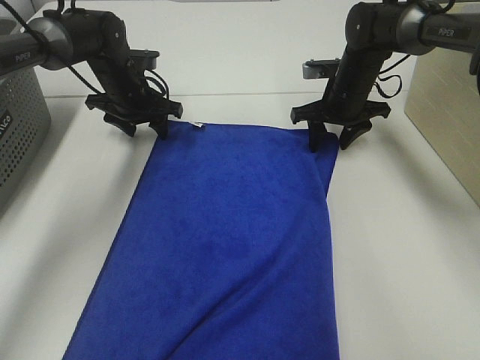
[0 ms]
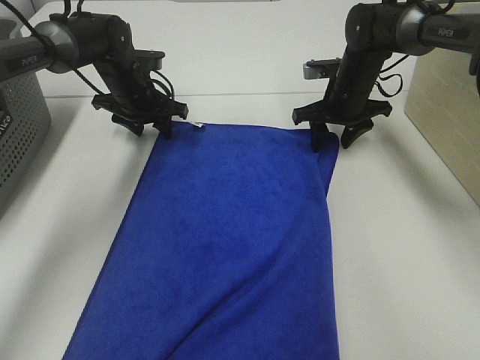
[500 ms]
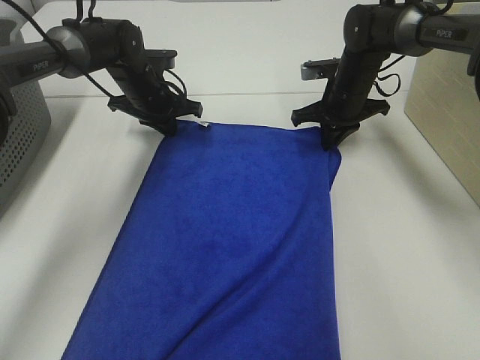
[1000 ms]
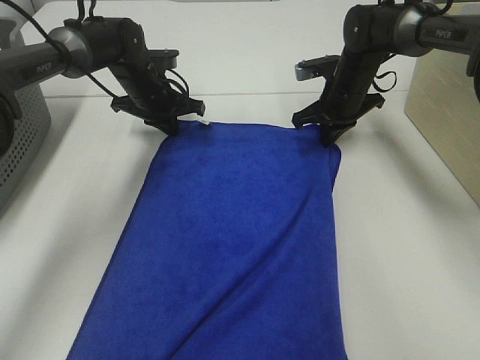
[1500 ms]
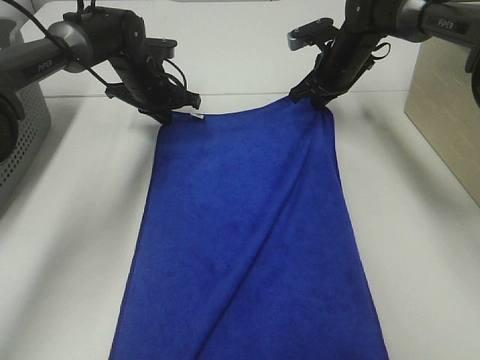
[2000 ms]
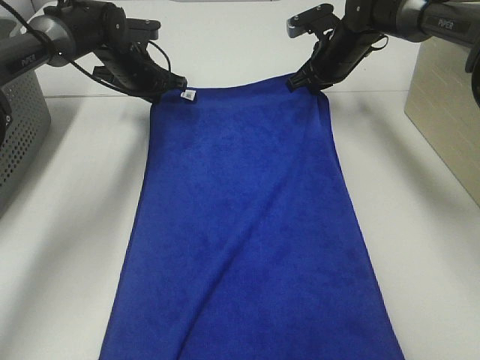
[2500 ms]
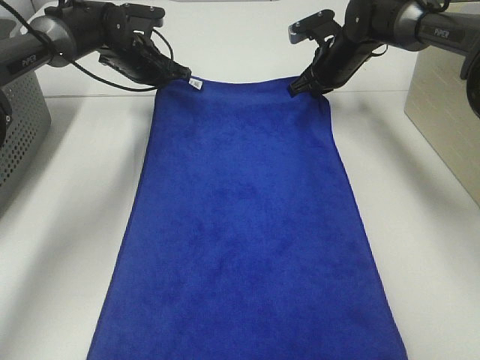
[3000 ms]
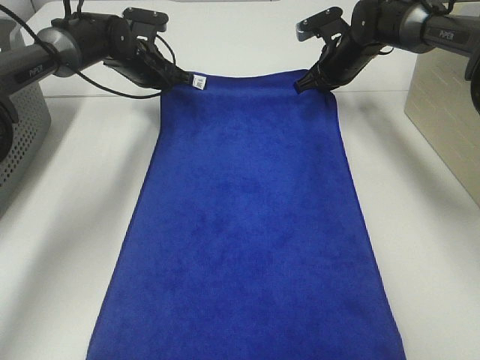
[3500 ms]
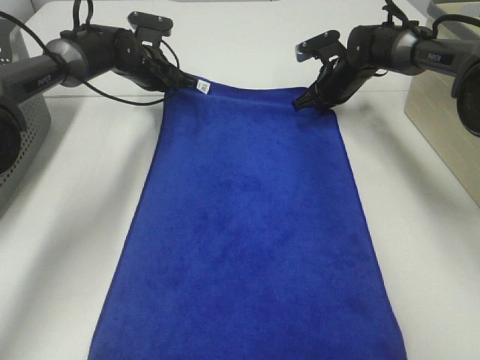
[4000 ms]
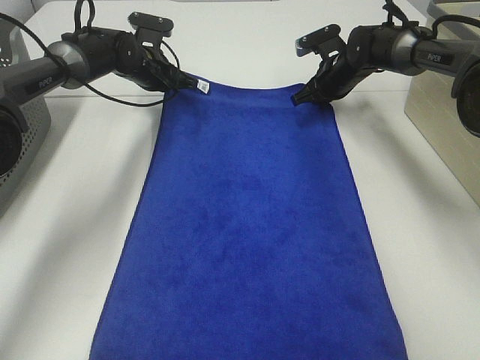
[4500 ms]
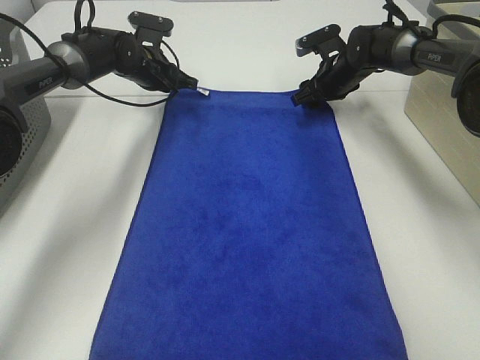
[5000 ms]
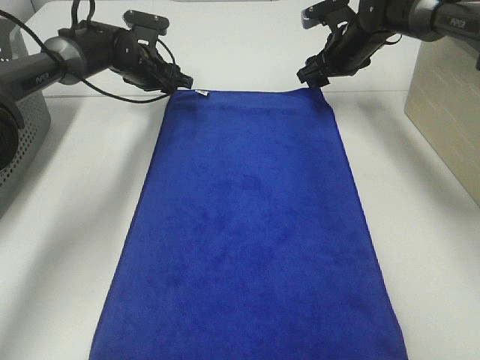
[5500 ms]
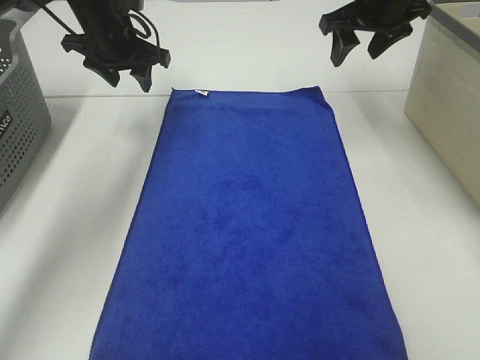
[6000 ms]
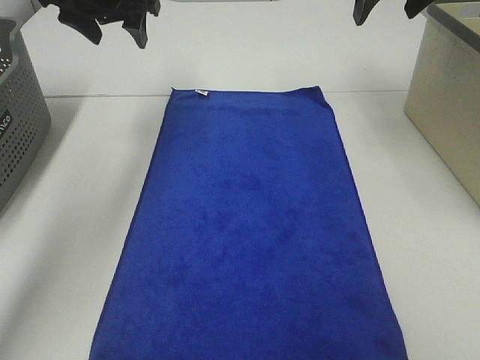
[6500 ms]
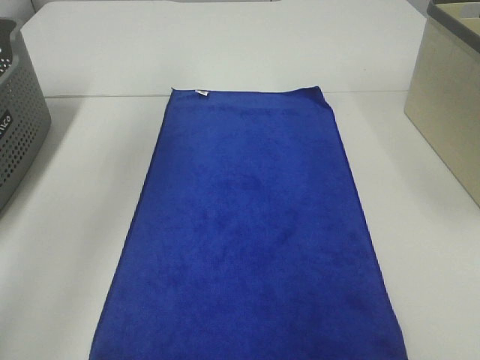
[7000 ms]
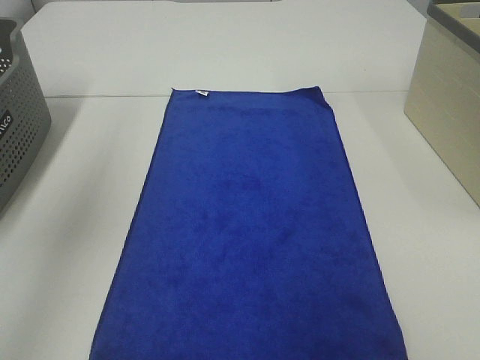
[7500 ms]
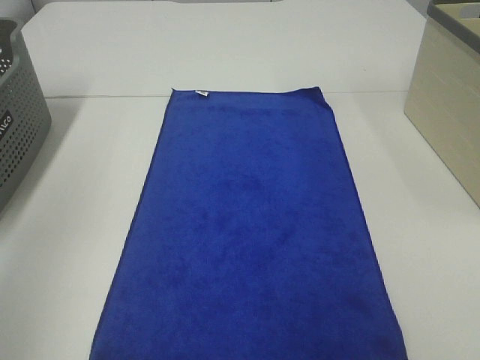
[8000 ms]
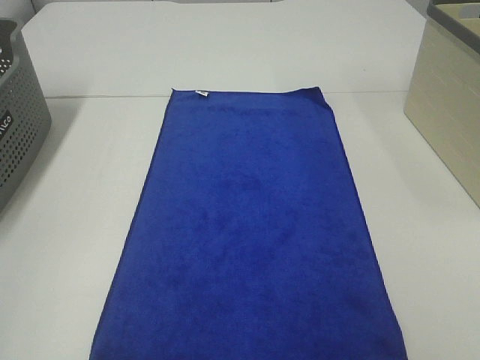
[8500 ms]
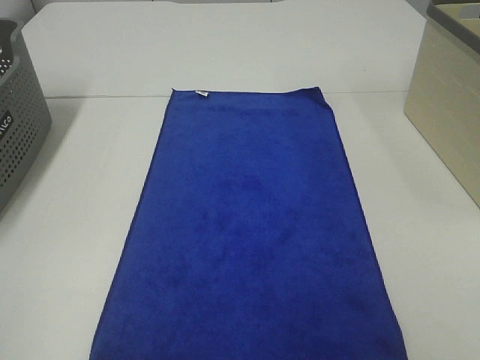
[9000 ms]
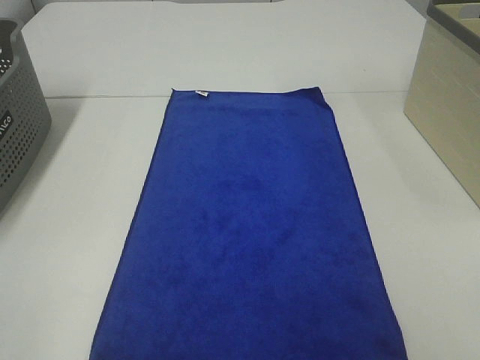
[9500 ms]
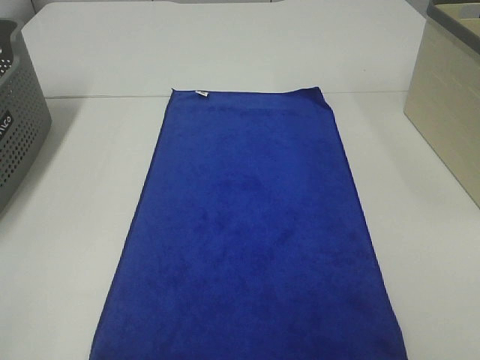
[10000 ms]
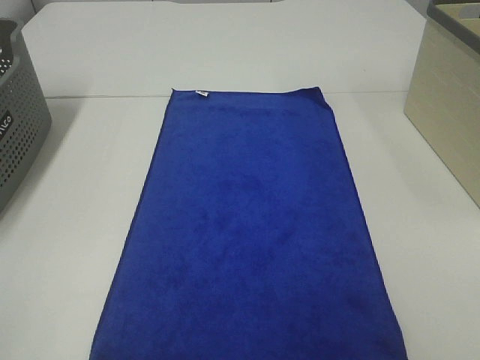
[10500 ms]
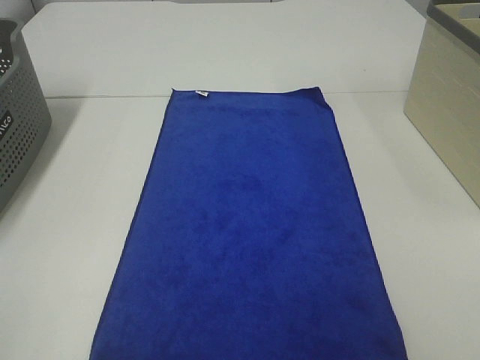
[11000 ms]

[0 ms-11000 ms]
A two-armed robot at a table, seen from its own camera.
Task of the whole recording: Remove the towel and place it.
0 ms to 2000 ms: The left gripper closes up. Meanwhile the right gripper closes its fingers.
3500 ms to 5500 ms: The left gripper opens. The right gripper opens.
5500 ms to 7500 ms: Both grippers move backward and upward, roughly 50 cm.
7500 ms to 9000 ms: The left gripper heads backward and downward, covering roughly 30 cm.

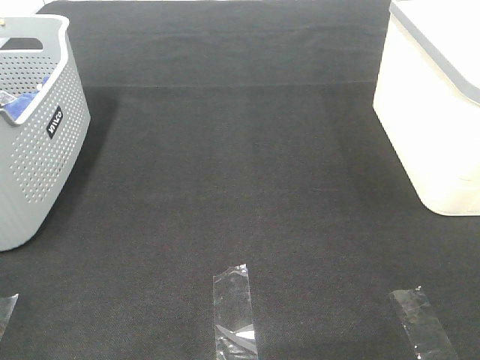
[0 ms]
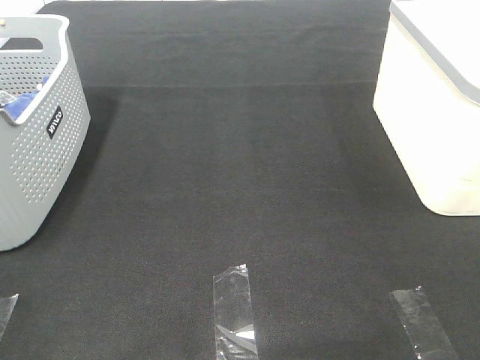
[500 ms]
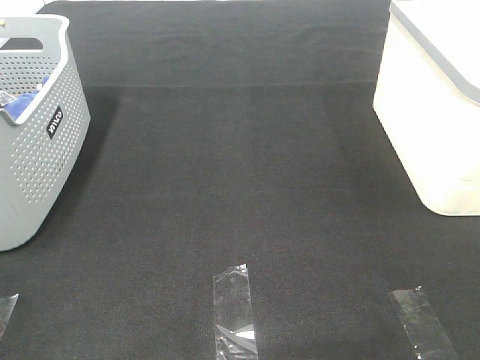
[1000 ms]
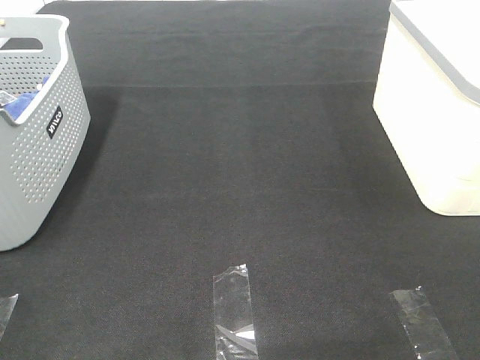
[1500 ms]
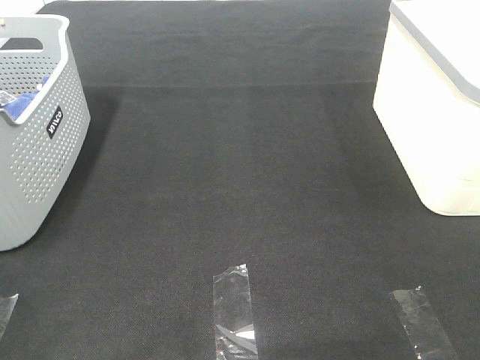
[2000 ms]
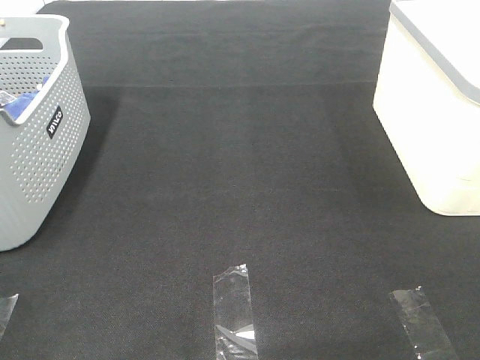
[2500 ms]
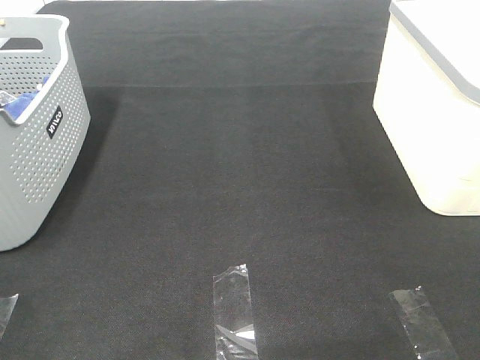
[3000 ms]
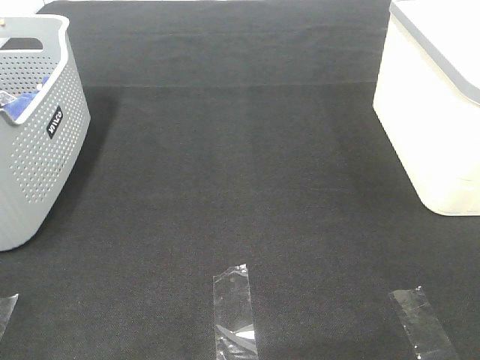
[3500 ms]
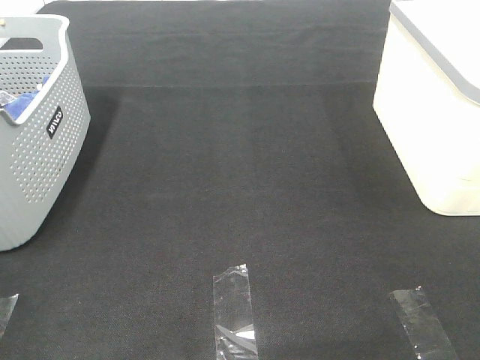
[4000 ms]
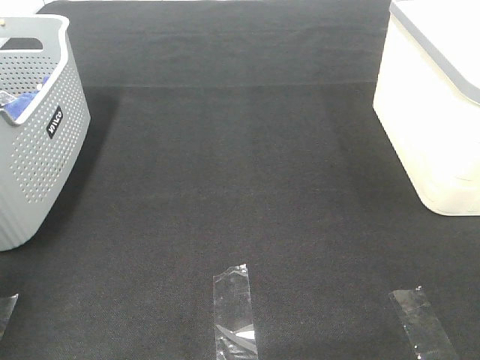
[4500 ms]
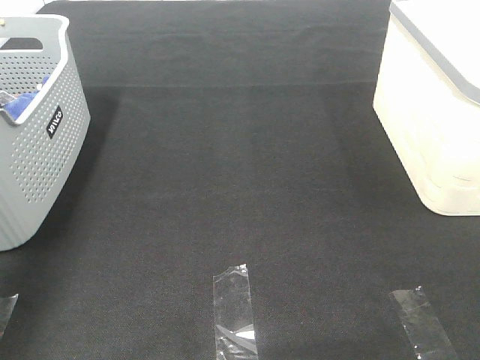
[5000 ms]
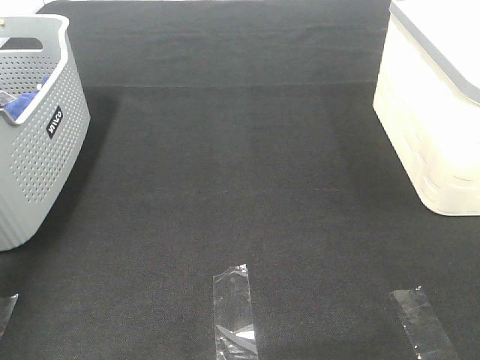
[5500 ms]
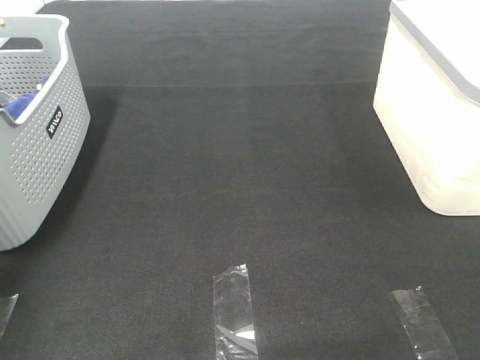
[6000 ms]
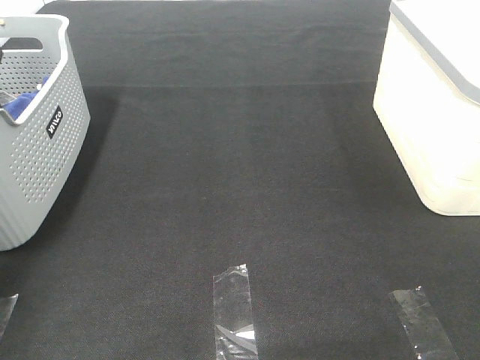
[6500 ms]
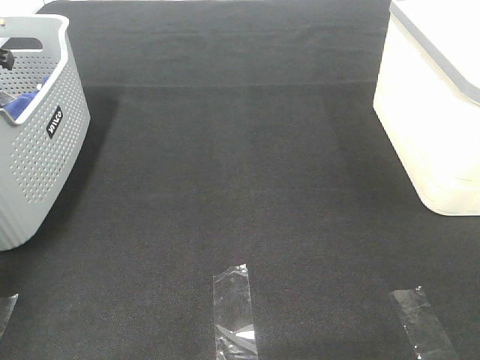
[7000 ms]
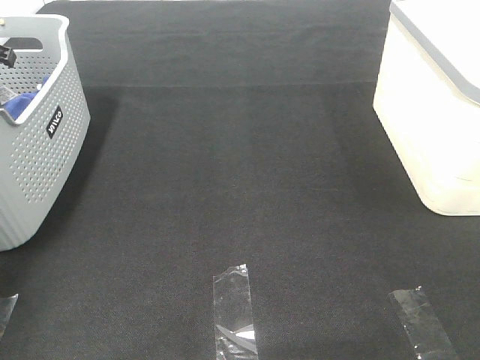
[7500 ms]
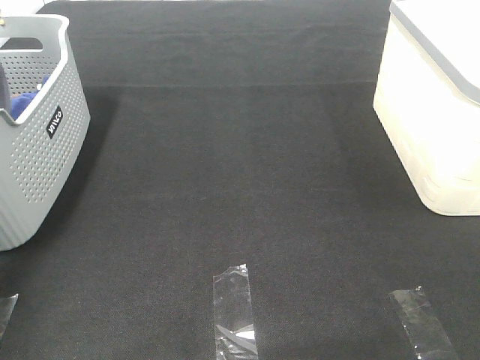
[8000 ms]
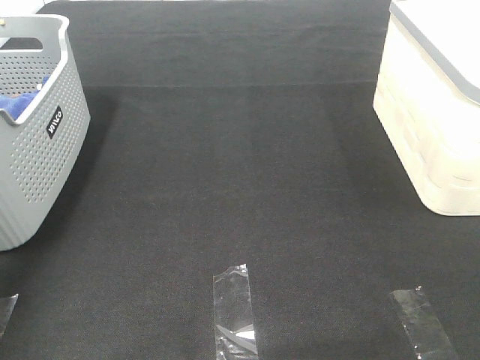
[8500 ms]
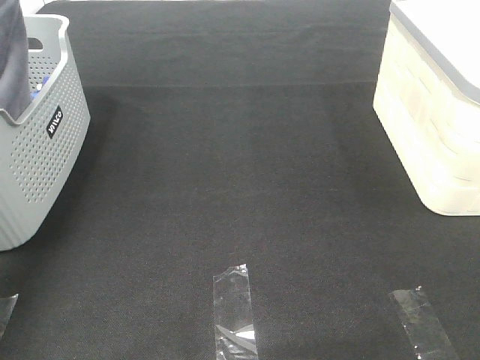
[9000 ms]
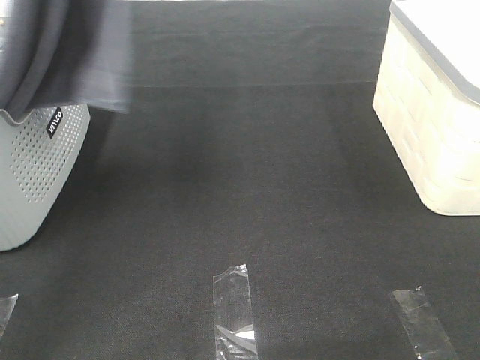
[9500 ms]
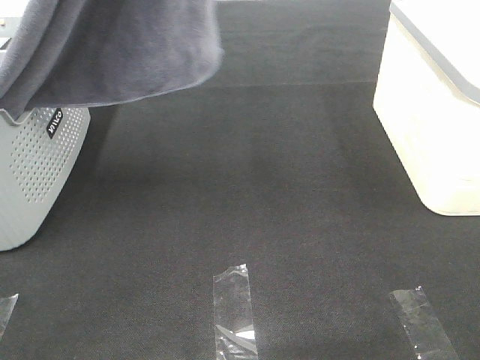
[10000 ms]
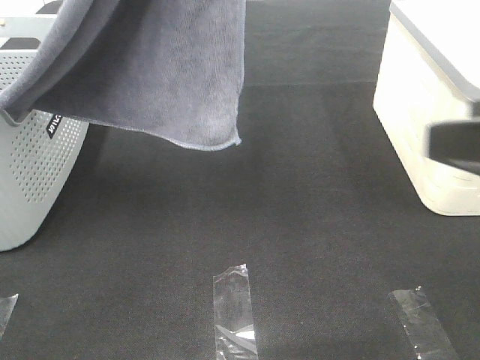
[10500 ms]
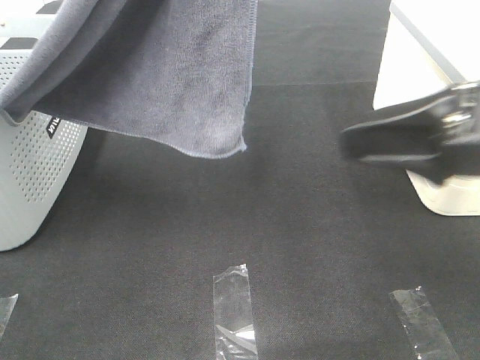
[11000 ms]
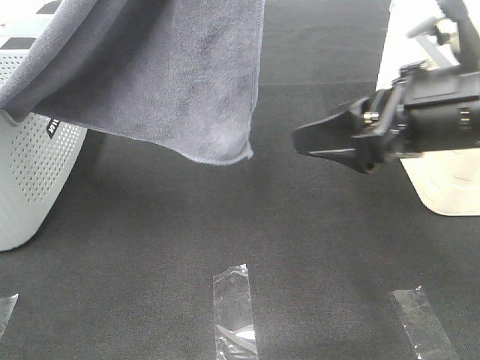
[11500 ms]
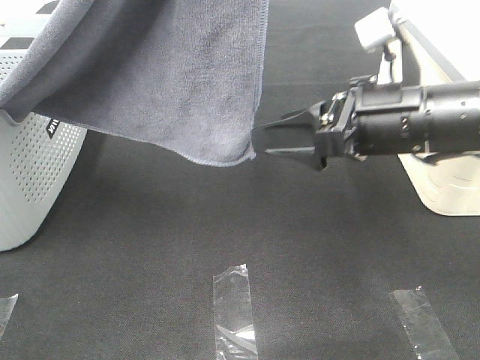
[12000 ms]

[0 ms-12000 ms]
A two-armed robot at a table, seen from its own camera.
Task of the whole recording: Remove the towel and place it.
0 ms to 2000 ms: Both grippers stay put.
4000 ms to 6000 ms: The left gripper shifts roughly 40 cm forward.
8000 ms to 10000 ms: The left gripper travels to the right, upward and backward by roughly 30 cm.
10000 ms to 12000 ms: The right gripper travels forward, to the left and downward by some 25 cm.

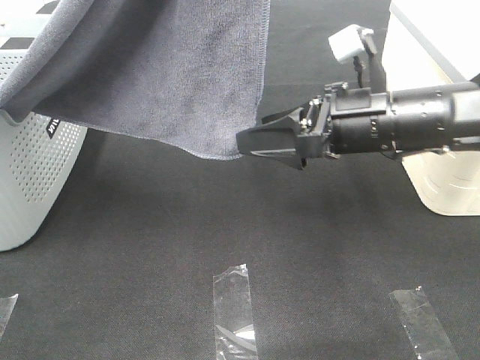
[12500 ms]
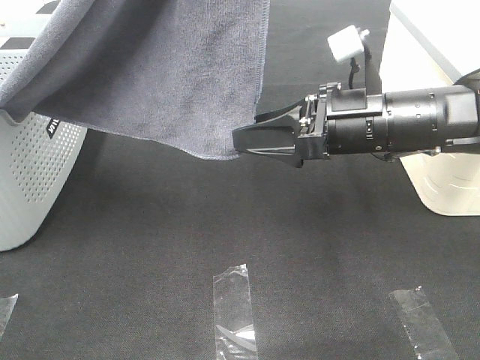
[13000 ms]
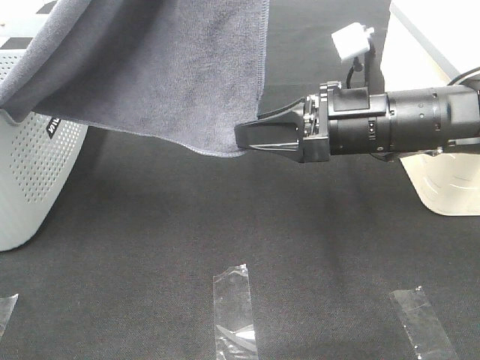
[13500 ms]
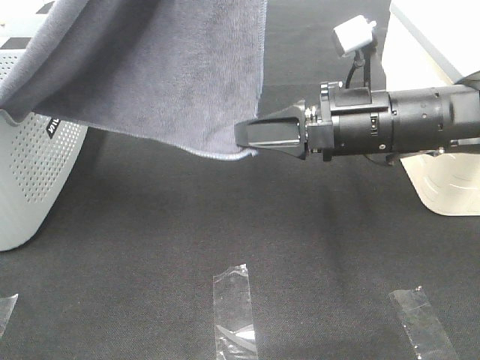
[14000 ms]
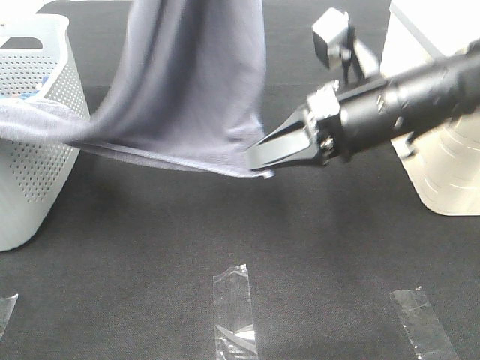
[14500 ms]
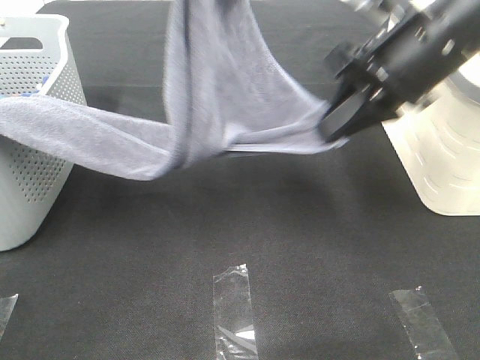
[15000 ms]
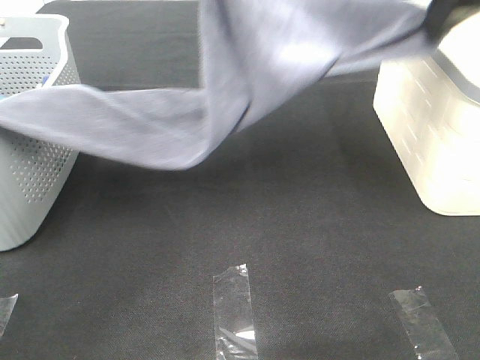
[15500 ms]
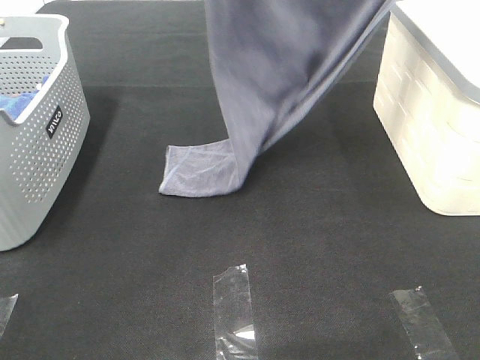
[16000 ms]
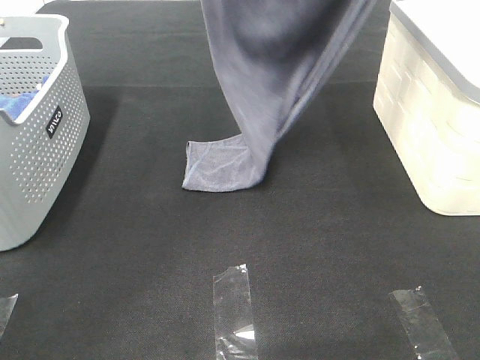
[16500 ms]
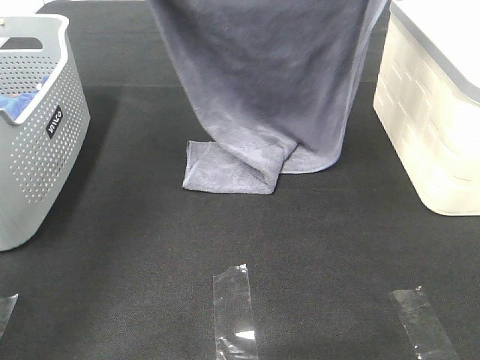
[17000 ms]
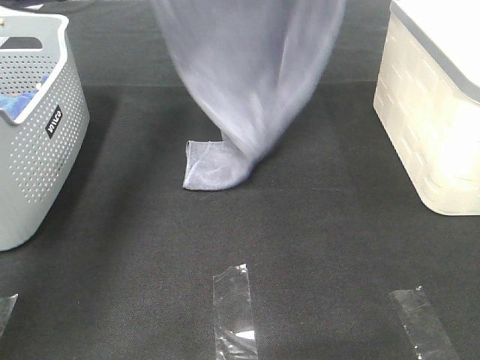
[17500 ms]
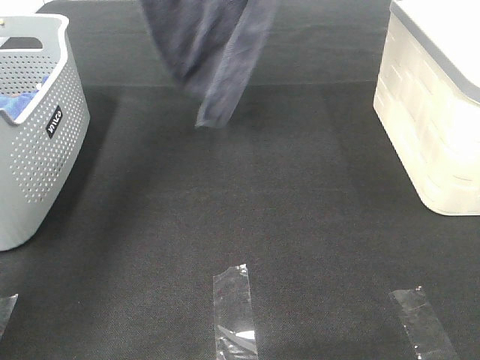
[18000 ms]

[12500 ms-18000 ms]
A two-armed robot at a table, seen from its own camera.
Task of the whole recording: Remove the towel and place it.
12500 ms to 14500 ms: The left gripper changes place by roughly 5 cm. Meanwhile the right gripper closes its fingers.
14500 ms to 16000 ms: The left gripper heads forward, covering roughly 10 cm; the right gripper is displaced upward by roughly 25 cm.
16000 ms to 18000 ms: The right gripper is displaced forward and to the left by some 5 cm. Meanwhile the left gripper travels to the left, forward and upward by approximately 15 cm.
